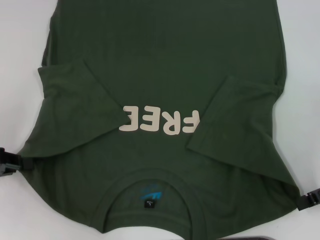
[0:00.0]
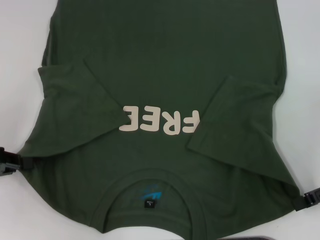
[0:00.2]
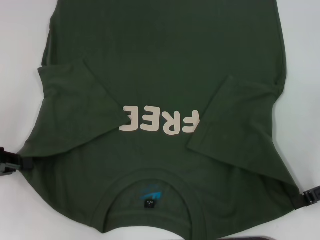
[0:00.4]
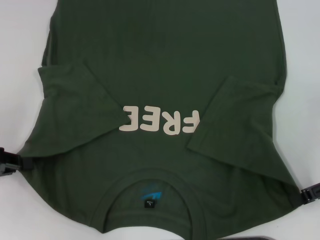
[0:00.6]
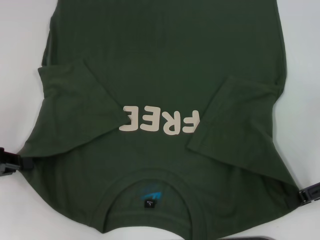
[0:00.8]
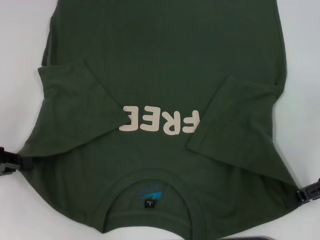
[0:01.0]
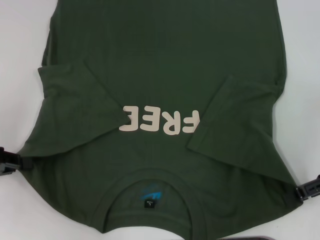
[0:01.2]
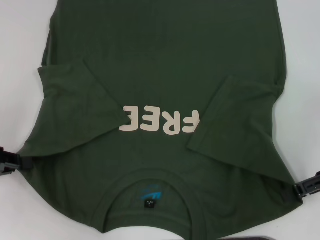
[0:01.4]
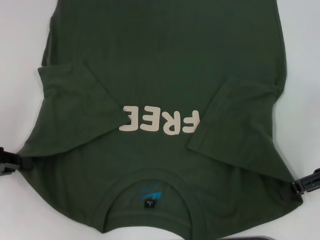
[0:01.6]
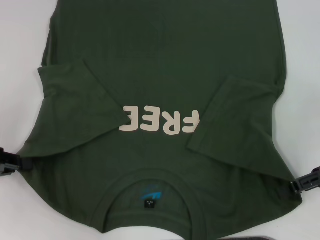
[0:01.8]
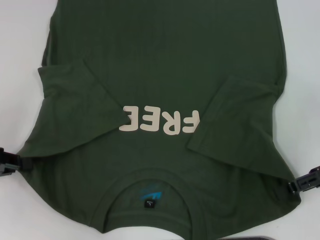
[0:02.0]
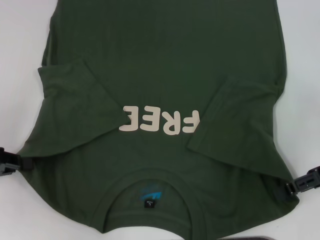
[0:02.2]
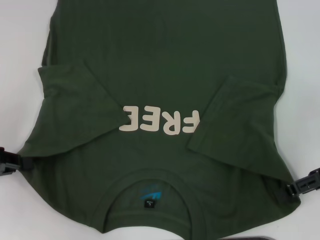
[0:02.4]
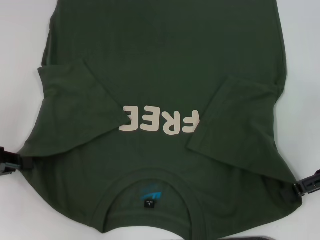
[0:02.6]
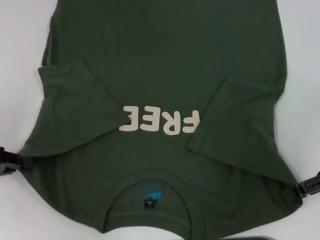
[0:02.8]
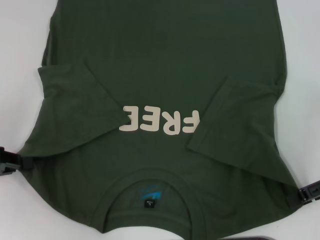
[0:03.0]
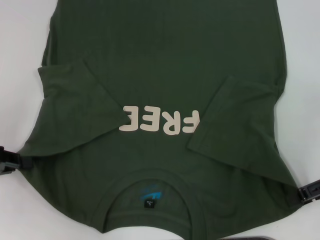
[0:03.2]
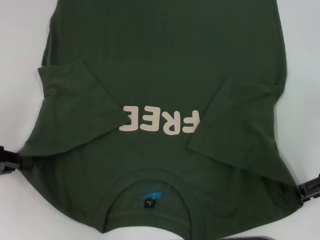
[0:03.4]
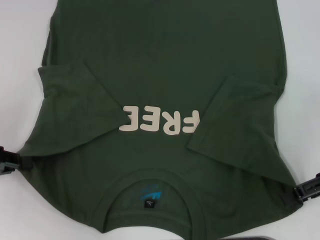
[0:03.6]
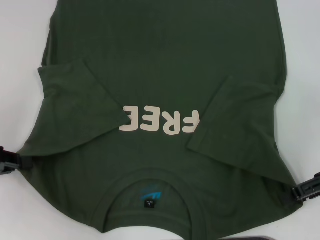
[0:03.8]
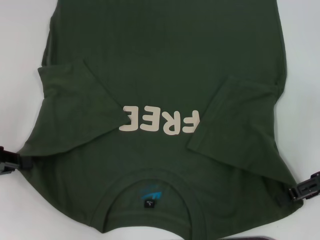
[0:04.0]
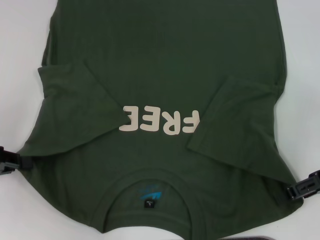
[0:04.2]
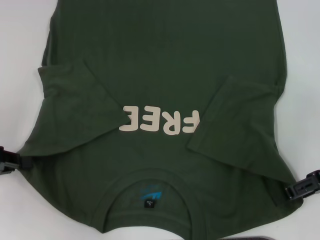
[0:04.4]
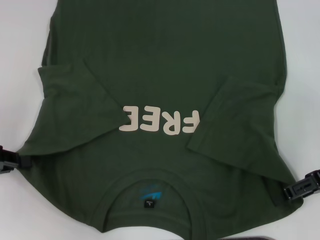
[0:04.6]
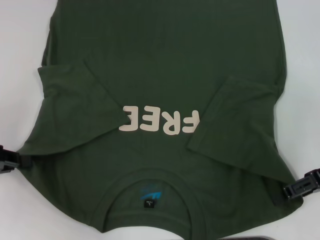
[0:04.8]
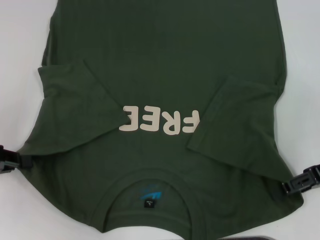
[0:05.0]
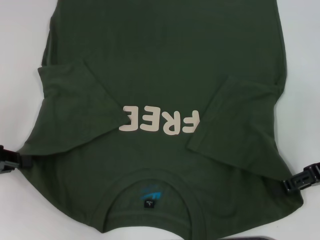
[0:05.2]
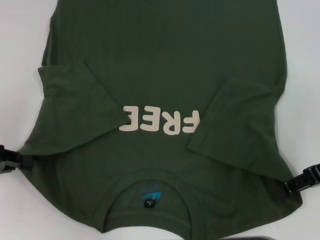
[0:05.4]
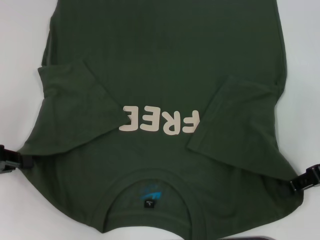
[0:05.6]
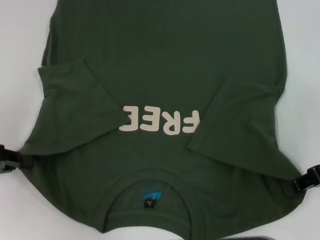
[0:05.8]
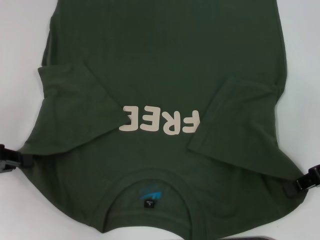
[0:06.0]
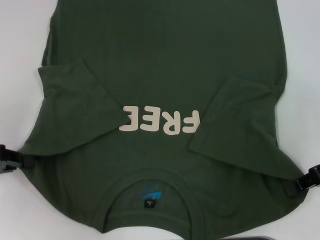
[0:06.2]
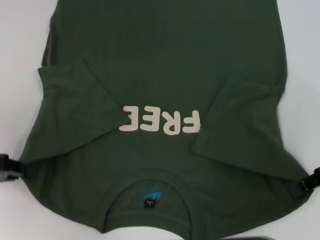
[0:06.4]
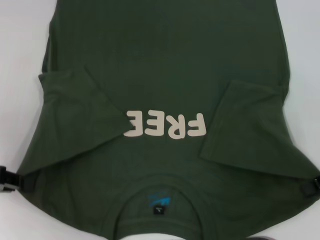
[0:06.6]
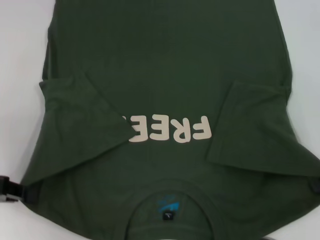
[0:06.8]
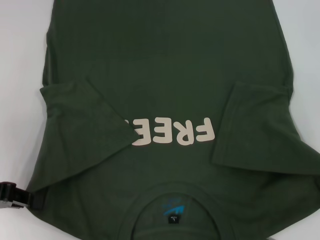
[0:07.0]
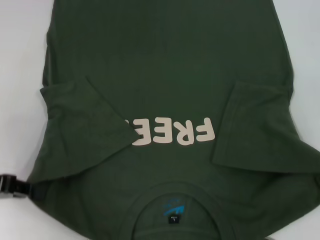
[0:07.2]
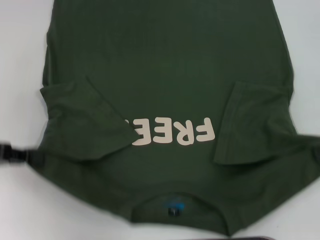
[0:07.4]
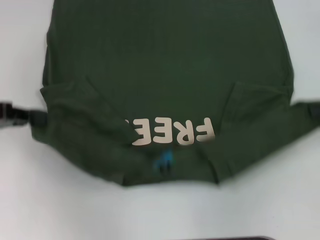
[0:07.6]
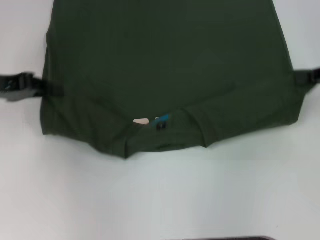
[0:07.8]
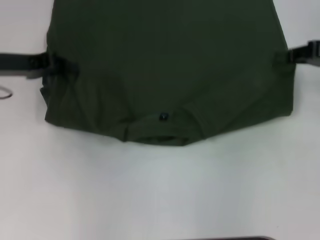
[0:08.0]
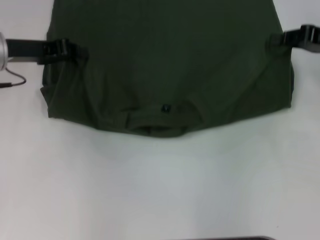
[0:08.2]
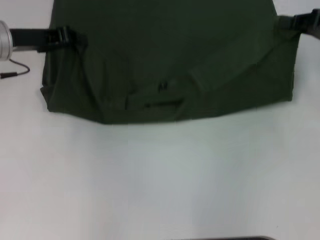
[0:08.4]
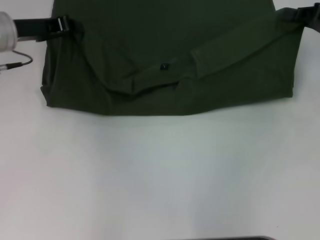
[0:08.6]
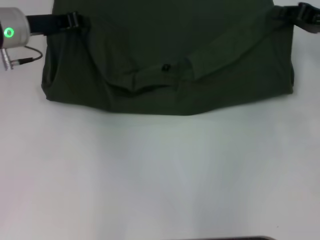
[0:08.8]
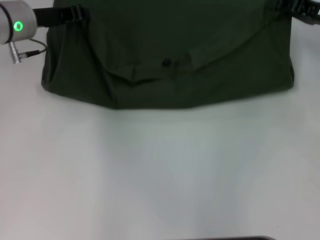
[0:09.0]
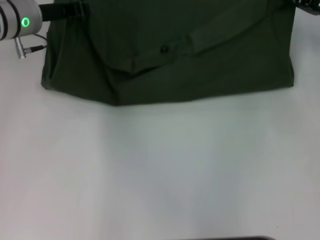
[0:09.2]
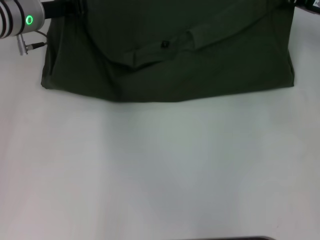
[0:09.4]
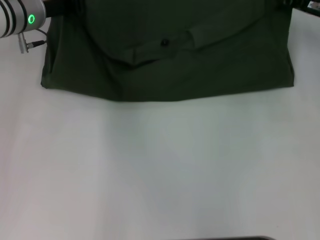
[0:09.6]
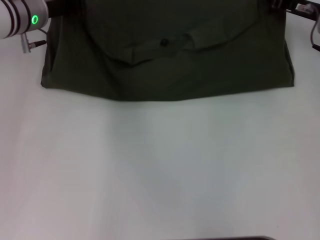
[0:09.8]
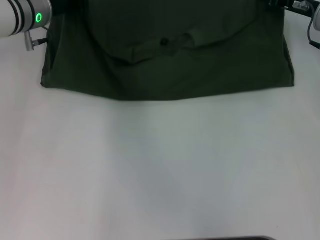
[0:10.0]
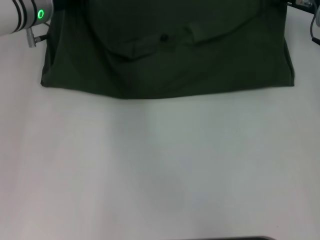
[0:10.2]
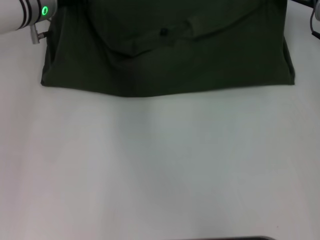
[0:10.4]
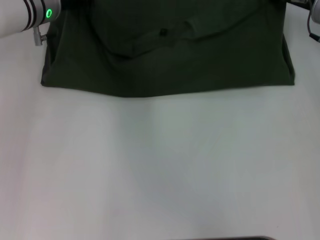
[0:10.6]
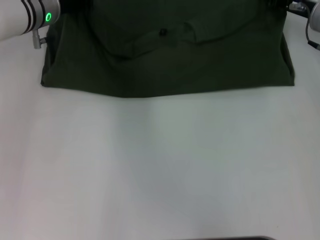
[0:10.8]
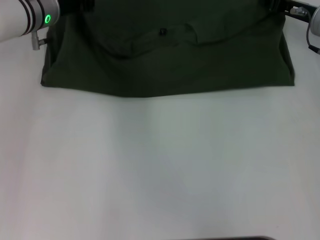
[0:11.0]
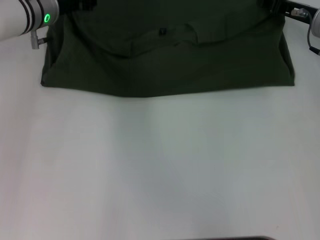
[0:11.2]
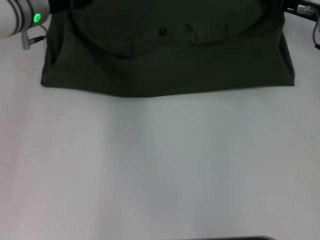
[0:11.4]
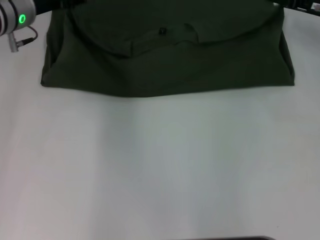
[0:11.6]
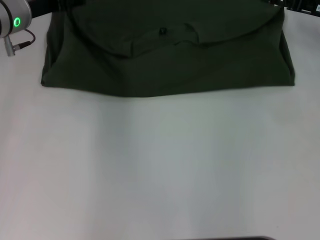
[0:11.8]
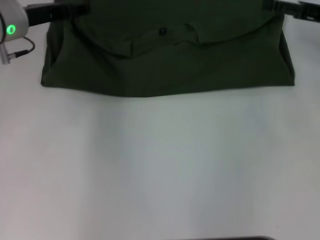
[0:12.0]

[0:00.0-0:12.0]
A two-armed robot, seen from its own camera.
Step, 0:06.2 to 0:11.8: Fold the clothes with your left hand.
Step, 0:06.2 to 0:11.8: Fold the clothes with your right hand.
0:00.0 to 0:01.6: The grippers stay close to where they were, moving slightly.
0:01.6 to 0:03.0: Neither gripper changes place.
0:03.0 to 0:04.4: The grippers make only small movements.
0:04.4 to 0:06.0: The right gripper closes its fingers.
0:06.0 to 0:07.6: The right gripper is displaced upward by roughly 5 cm; the left gripper ends up about 5 cm from where it was.
0:07.6 to 0:09.0: The left gripper is displaced forward and to the right by approximately 20 cm; the right gripper travels forward and to the left by roughly 10 cm.
0:09.0 to 0:10.4: The right gripper changes place by about 5 cm.
0:10.4 to 0:12.0: The left gripper moves about 5 cm, and opens its fingers; the right gripper shifts roughly 5 cm backward, and opens up.

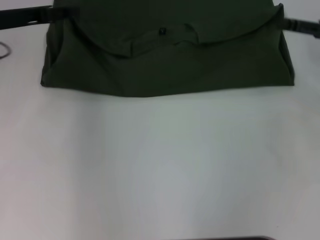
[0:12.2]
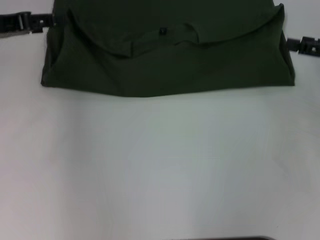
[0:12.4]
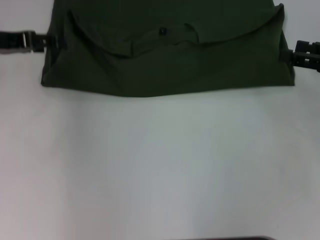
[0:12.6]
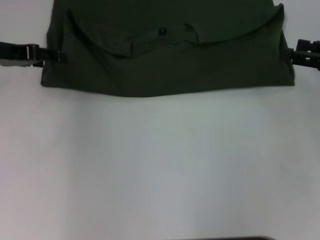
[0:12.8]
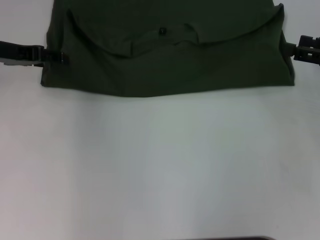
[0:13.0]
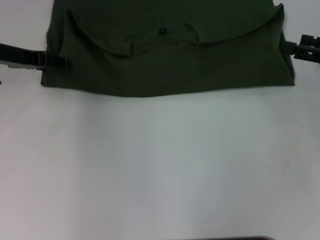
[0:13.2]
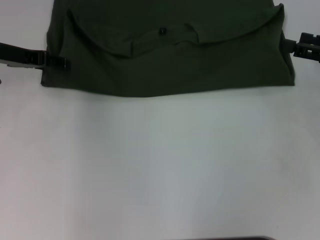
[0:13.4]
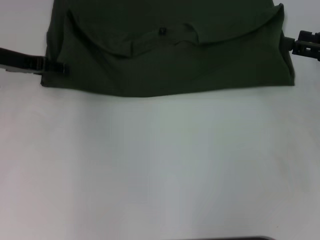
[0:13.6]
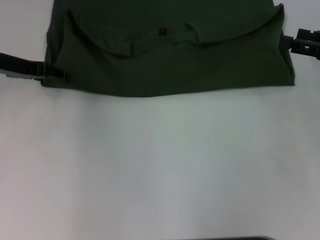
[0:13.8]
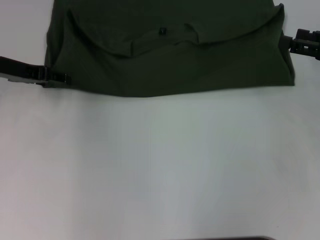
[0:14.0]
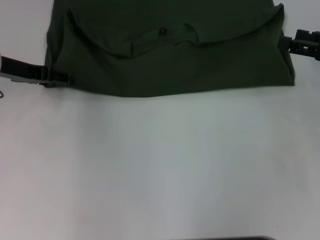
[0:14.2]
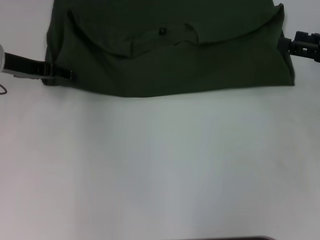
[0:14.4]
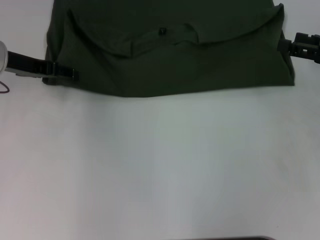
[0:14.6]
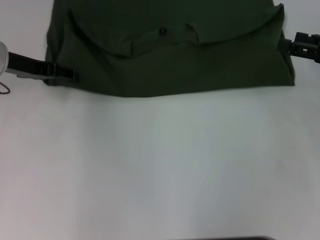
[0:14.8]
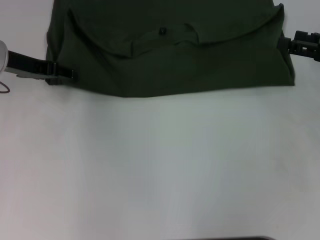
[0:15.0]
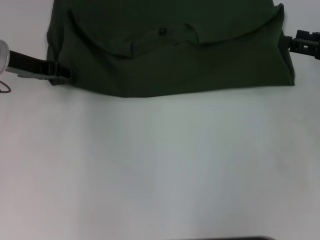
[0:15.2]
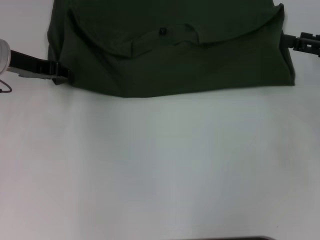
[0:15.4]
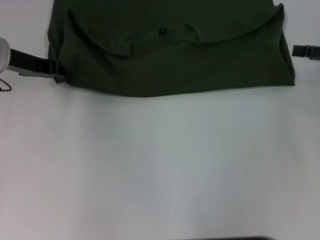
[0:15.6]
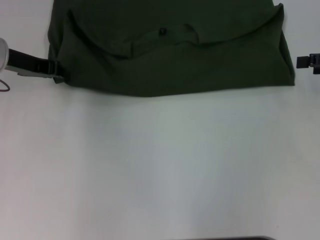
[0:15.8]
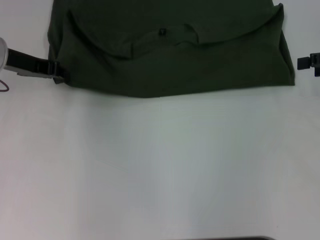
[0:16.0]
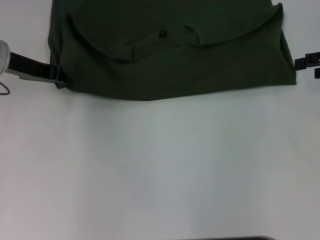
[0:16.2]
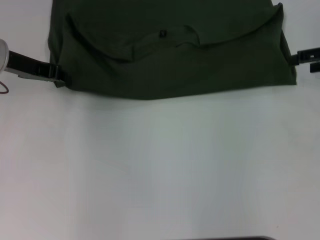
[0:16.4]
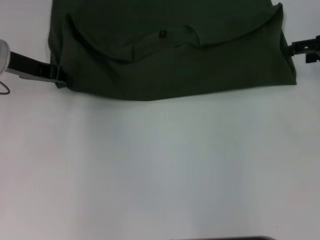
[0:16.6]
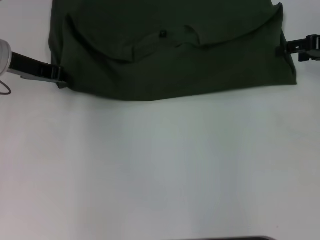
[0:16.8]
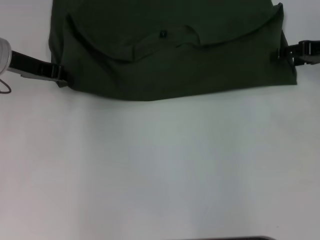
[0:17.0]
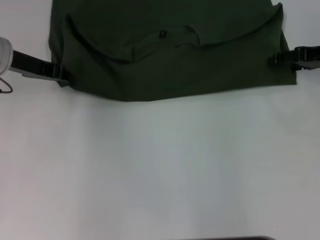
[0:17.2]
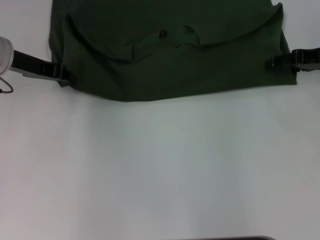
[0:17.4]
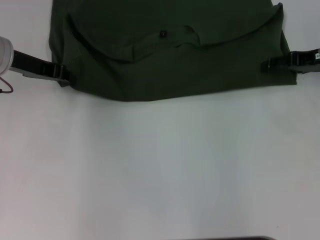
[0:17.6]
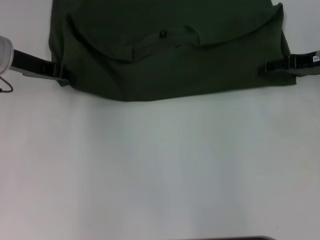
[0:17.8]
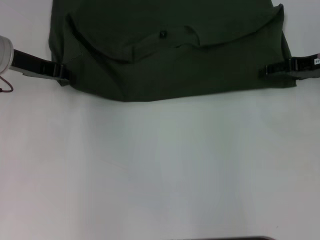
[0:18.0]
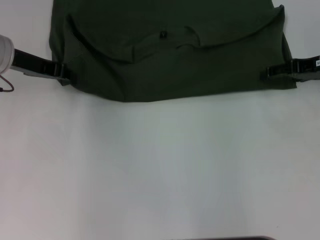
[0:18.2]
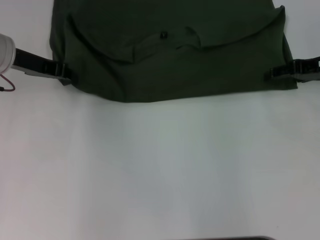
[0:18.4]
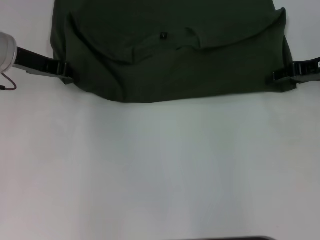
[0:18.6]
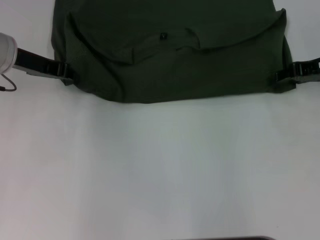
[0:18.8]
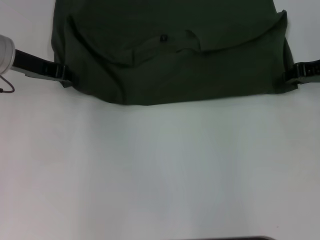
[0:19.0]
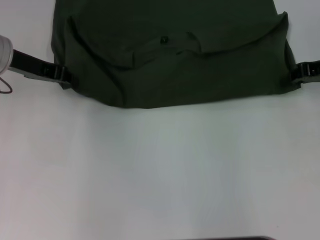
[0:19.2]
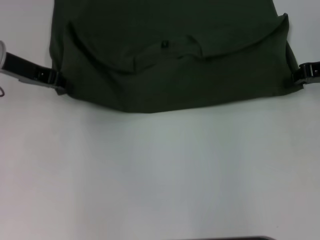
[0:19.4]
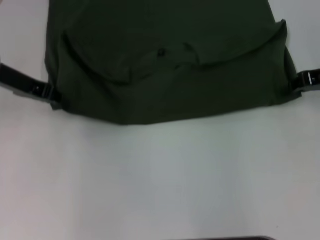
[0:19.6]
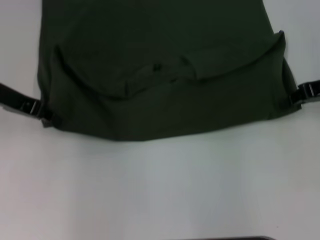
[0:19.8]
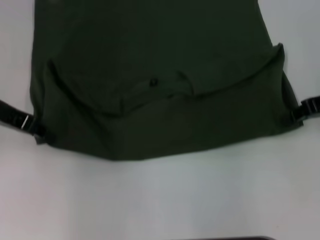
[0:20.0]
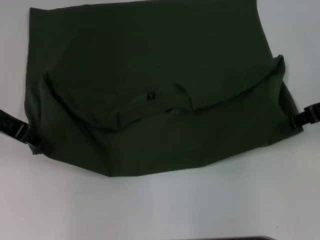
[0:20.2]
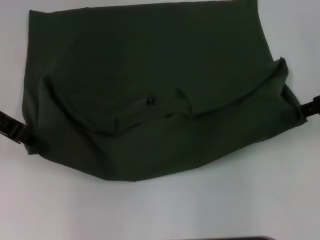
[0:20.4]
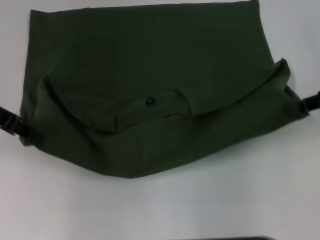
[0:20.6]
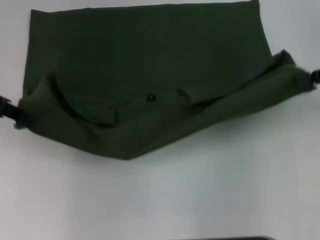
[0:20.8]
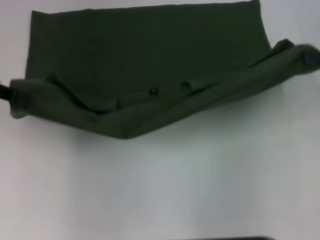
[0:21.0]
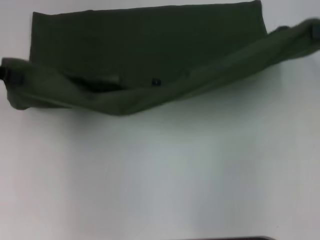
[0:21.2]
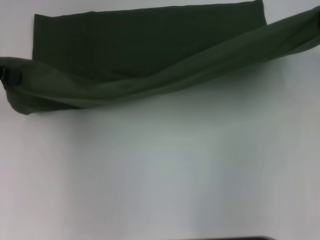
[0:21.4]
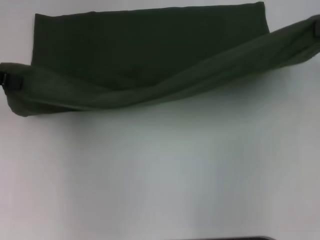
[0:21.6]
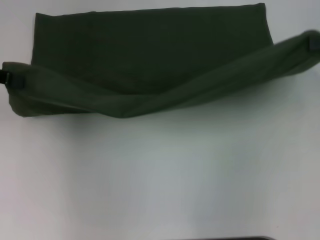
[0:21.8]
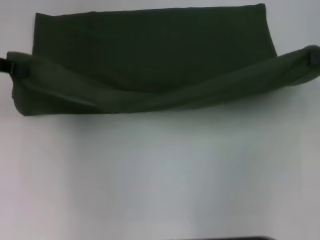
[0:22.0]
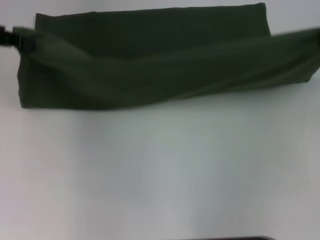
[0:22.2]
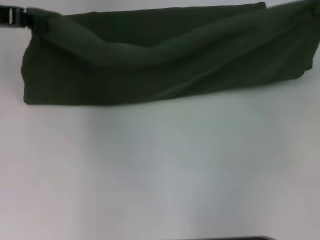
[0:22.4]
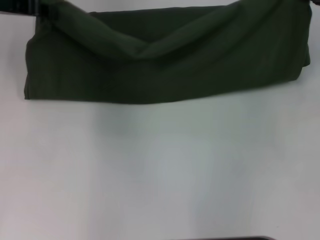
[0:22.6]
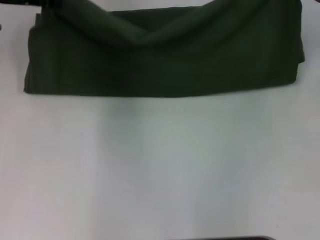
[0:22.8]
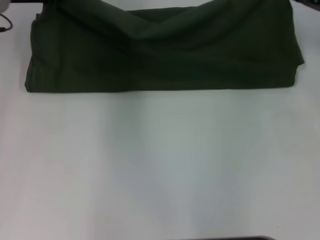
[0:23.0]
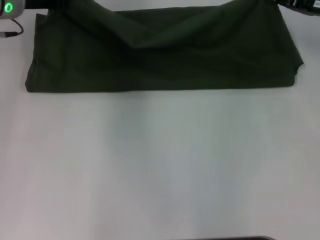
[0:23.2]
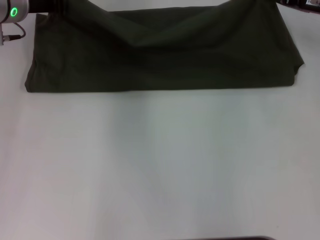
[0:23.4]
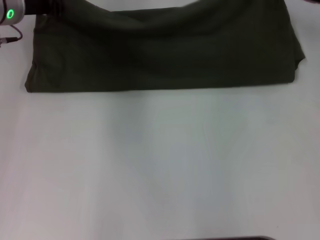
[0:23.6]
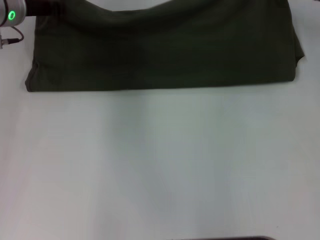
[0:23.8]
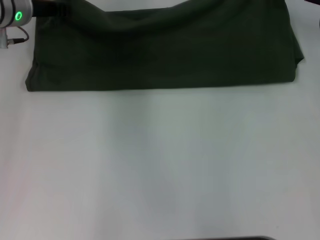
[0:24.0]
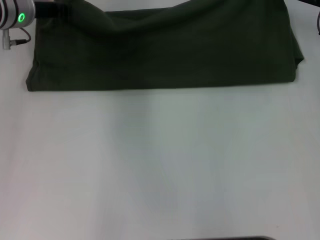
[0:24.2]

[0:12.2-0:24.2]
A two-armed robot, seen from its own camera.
Step, 0:12.2 to 0:20.2: Pull the clothes with your left hand.
Step, 0:12.2 to 0:20.2: Pull the clothes with your right hand.
0:13.8 to 0:15.2: There are only small adjustments of the grippers.
0:15.2 to 0:16.6: The left gripper closes. The right gripper moves forward, some 5 cm.
0:16.6 to 0:18.2: The right gripper ends up approximately 5 cm from where it was.
0:18.2 to 0:19.8: The right gripper closes up.
0:19.8 to 0:21.2: The left gripper shifts approximately 10 cm upward and to the left; the right gripper travels upward by about 10 cm.
0:21.2 to 0:22.6: The left gripper moves forward and to the right, some 10 cm. Meanwhile the right gripper moves about 5 cm.
0:22.6 to 0:24.2: The right gripper is displaced forward, to the left and downward by approximately 10 cm. Meanwhile the left gripper moves downward and to the right, about 10 cm.
